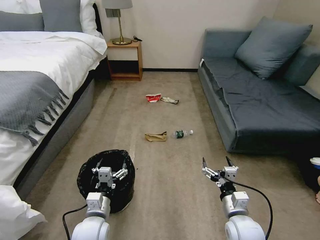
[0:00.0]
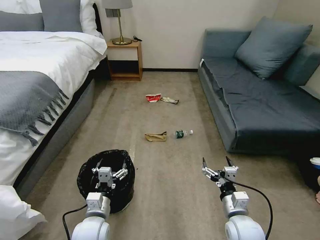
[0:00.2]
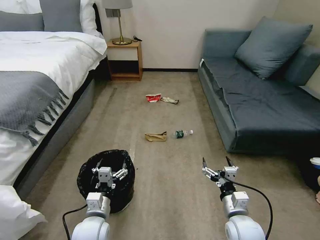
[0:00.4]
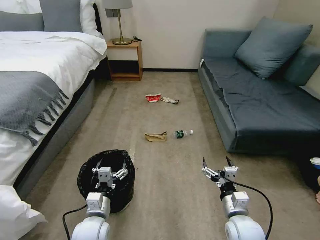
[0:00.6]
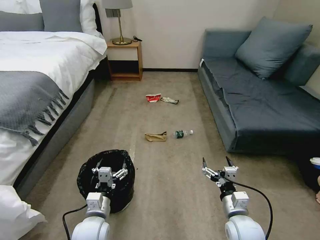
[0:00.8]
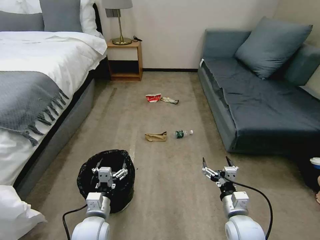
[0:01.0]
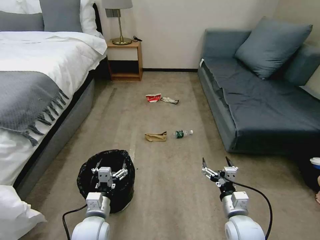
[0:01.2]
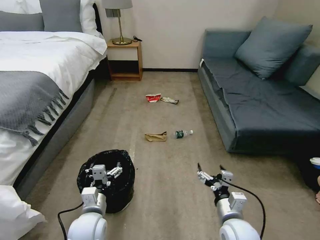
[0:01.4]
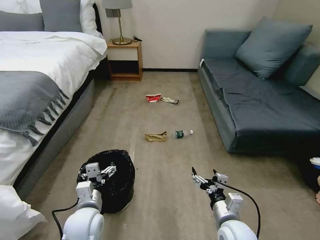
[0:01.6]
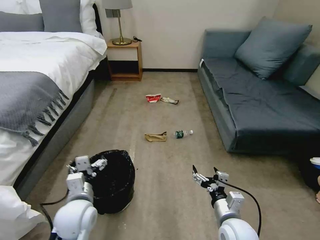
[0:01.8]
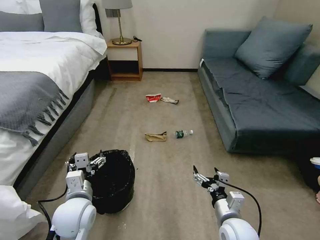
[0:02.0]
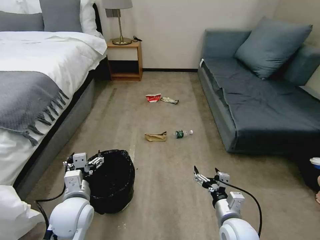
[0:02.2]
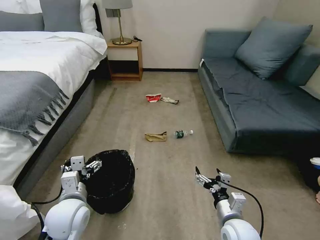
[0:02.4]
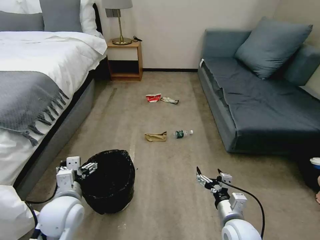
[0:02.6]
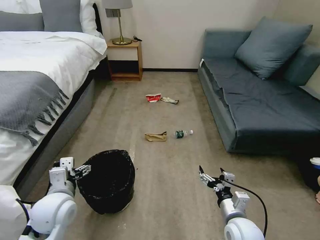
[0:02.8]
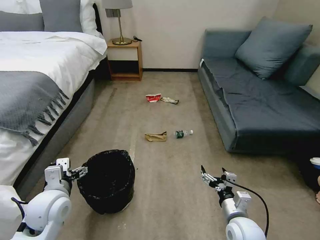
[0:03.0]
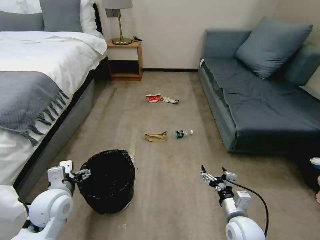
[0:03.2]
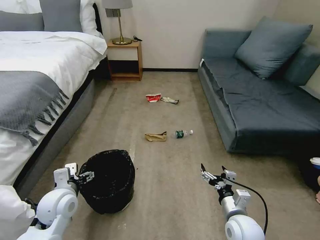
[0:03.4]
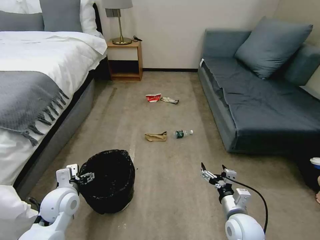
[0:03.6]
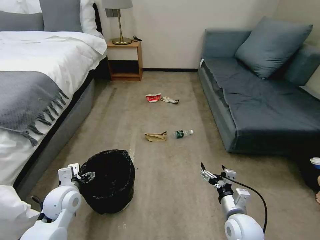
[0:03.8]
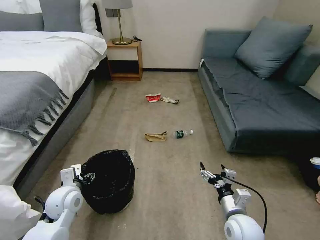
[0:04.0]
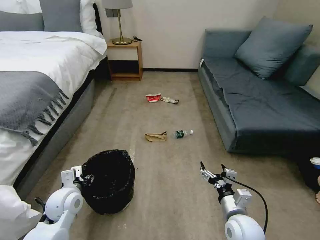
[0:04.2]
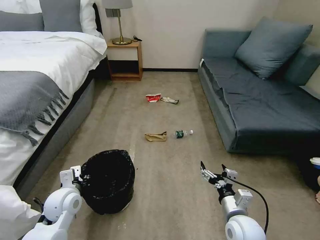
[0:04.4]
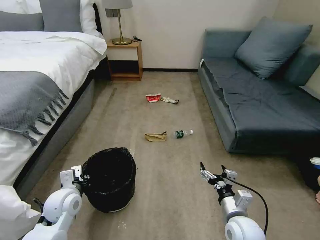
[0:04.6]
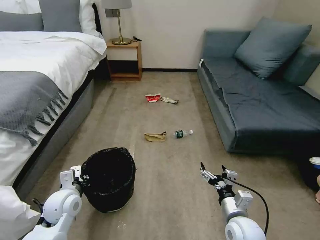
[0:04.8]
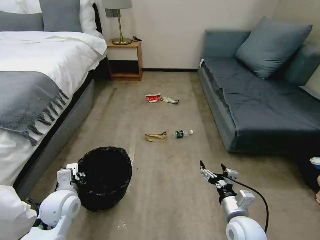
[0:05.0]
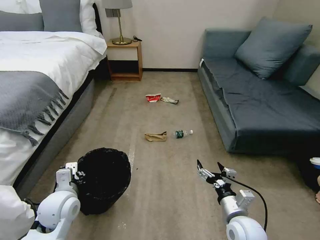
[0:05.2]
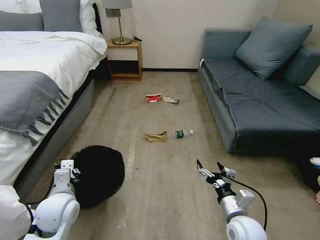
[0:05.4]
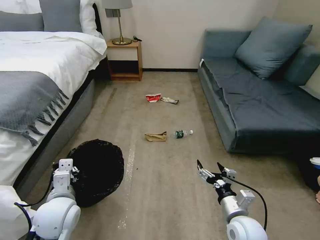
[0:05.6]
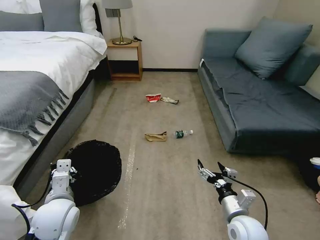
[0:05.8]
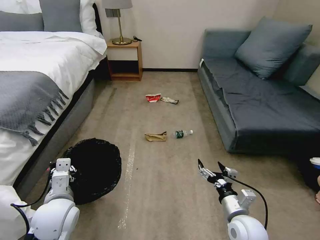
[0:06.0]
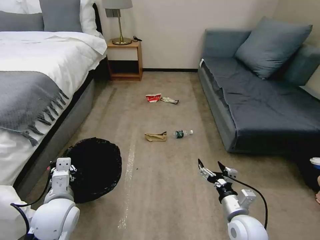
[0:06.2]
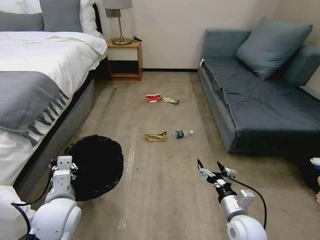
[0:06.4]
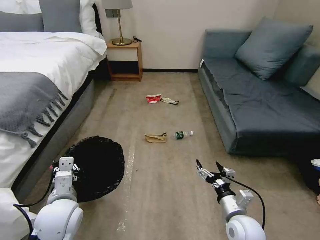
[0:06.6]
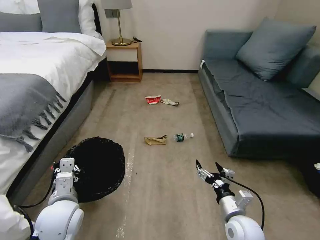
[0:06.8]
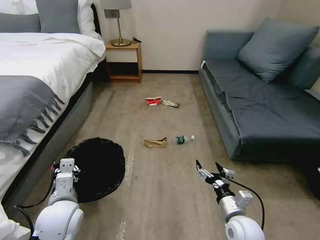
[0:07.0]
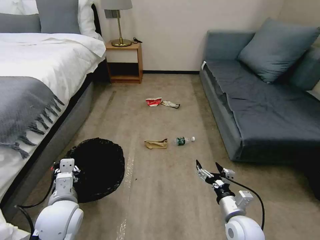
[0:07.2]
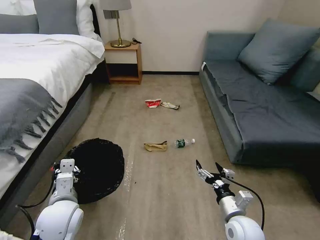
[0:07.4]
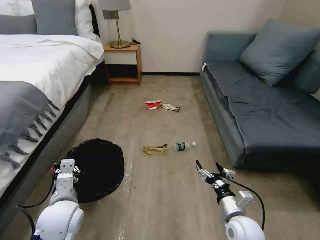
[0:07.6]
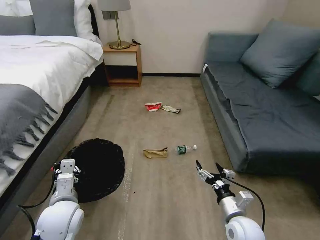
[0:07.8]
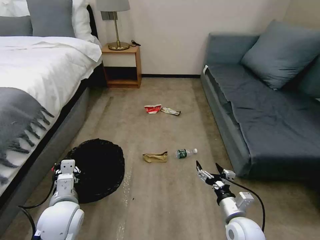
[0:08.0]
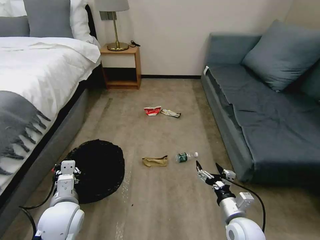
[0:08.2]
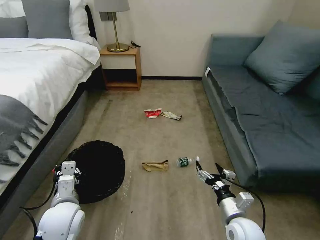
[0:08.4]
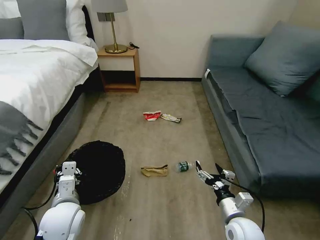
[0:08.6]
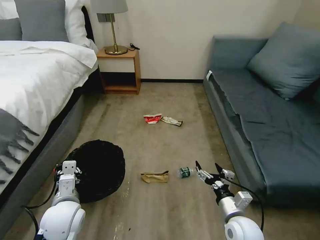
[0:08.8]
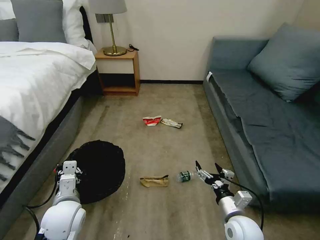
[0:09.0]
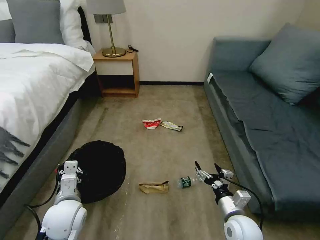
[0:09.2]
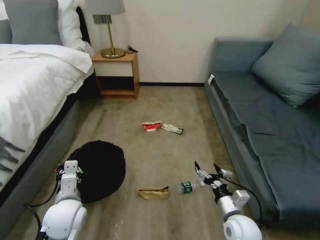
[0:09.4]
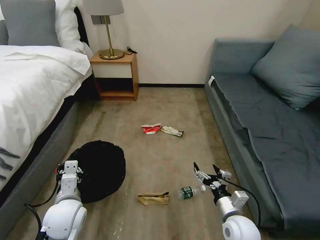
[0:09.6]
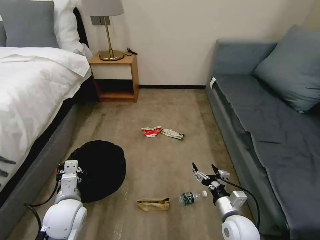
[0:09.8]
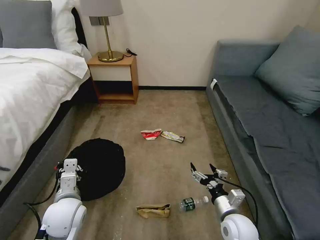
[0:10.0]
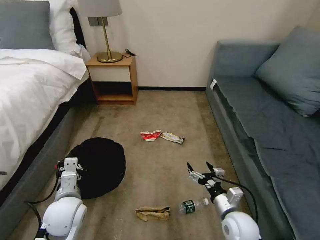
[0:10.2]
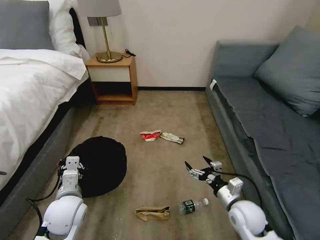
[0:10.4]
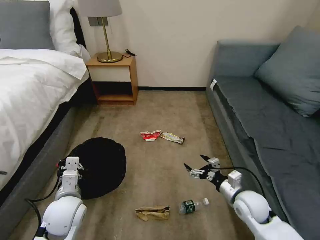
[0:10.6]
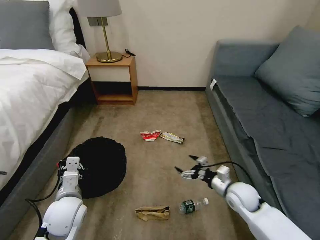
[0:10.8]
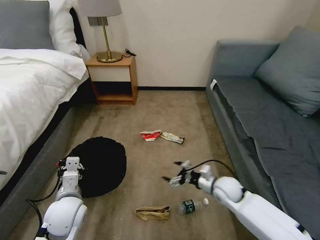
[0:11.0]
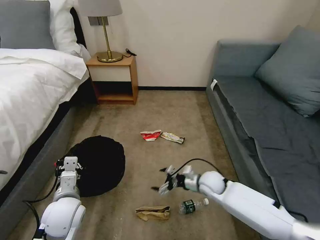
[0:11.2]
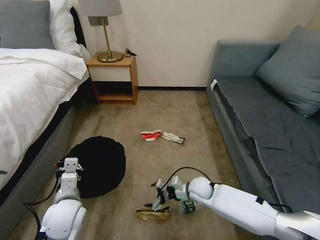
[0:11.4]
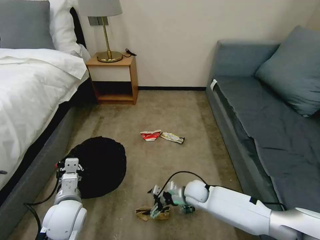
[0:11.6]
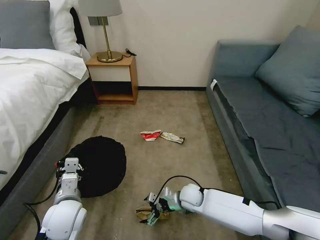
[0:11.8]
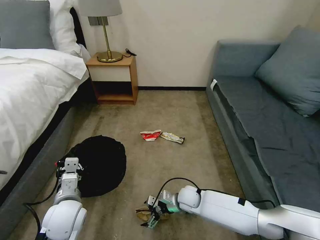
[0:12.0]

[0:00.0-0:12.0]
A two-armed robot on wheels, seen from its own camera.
Task of the whole recording: Pick up the trash bin, then pick up the garbage on the floor and place it into the trash bin.
0:01.6 to 0:03.0: The left gripper shifts about 10 cm to the left and upward.
0:03.0 to 0:04.4: The left gripper goes some 5 cm downward, and closes its fingers.
0:04.4 to 0:06.0: The left gripper shifts some 10 cm backward and upward.
0:10.4 to 0:12.0: The right gripper shifts some 20 cm to the left, downward and forward.

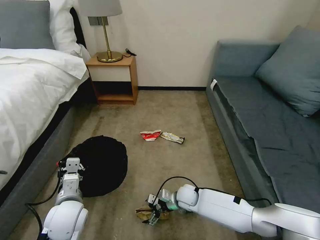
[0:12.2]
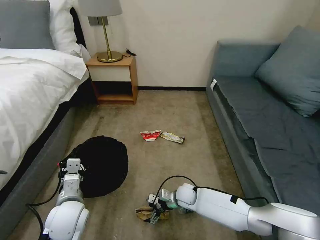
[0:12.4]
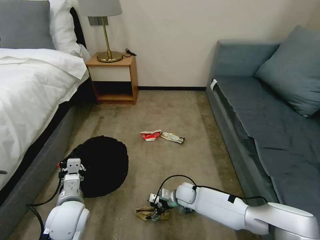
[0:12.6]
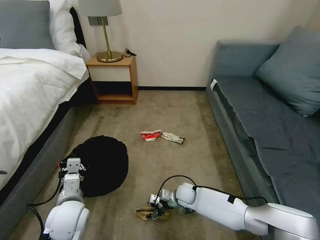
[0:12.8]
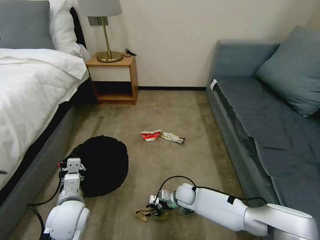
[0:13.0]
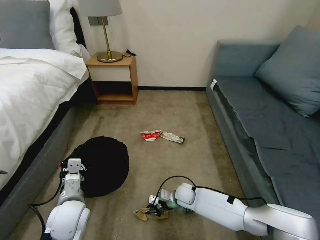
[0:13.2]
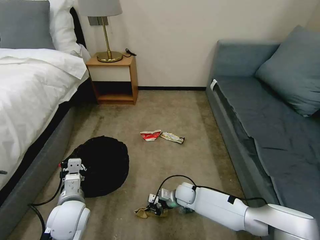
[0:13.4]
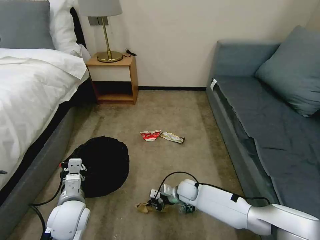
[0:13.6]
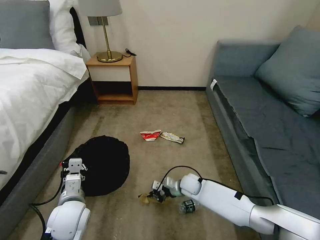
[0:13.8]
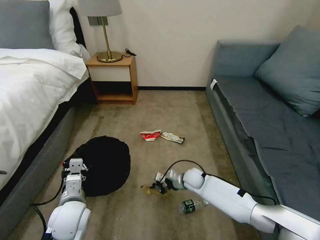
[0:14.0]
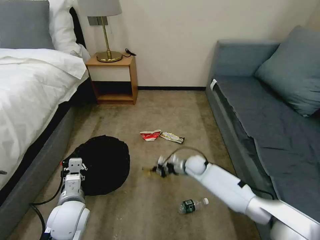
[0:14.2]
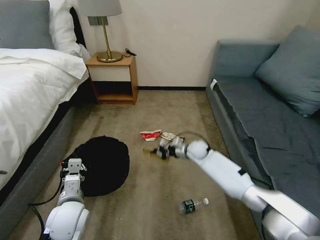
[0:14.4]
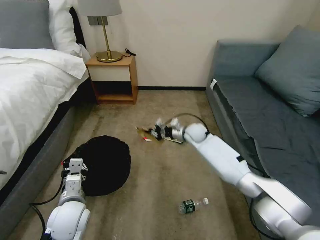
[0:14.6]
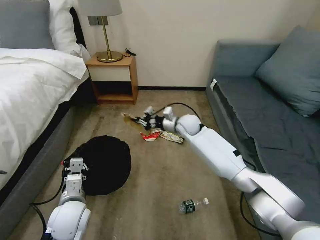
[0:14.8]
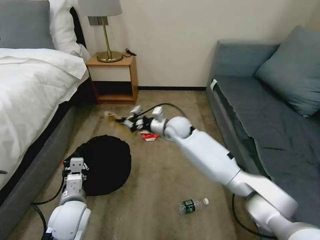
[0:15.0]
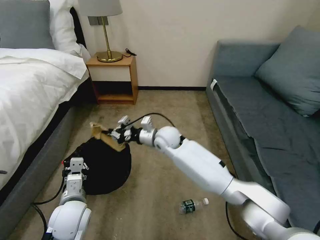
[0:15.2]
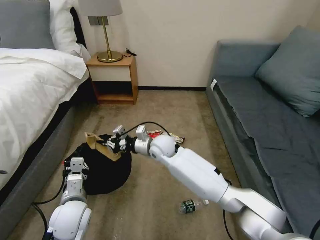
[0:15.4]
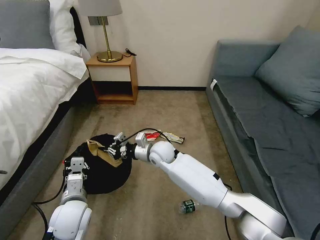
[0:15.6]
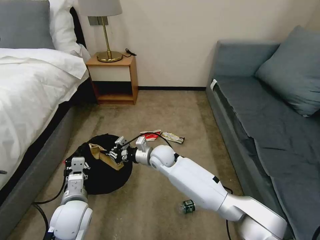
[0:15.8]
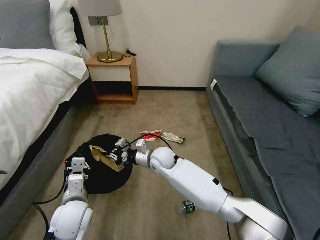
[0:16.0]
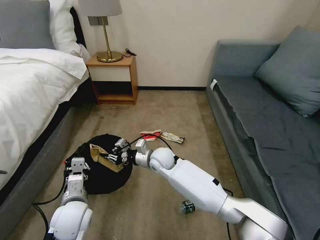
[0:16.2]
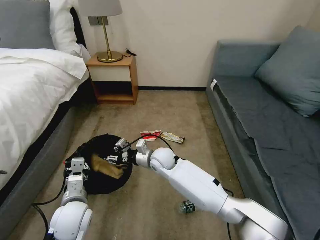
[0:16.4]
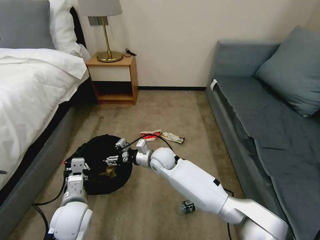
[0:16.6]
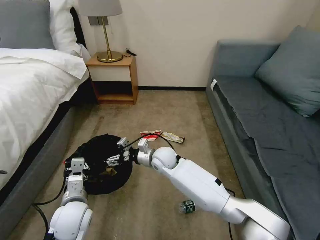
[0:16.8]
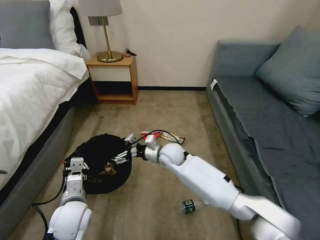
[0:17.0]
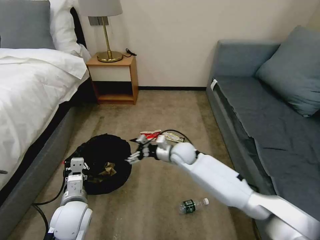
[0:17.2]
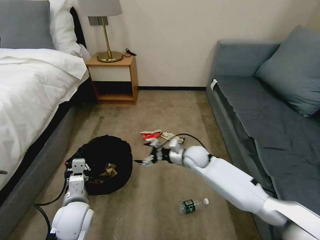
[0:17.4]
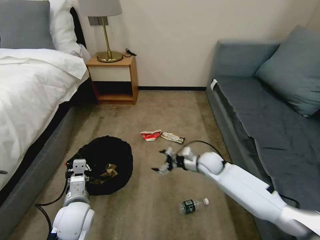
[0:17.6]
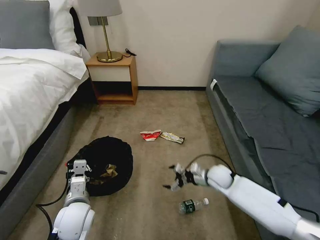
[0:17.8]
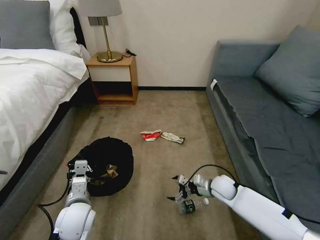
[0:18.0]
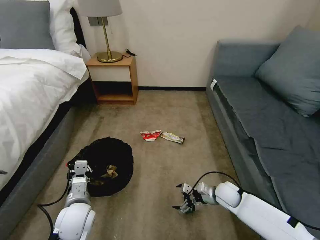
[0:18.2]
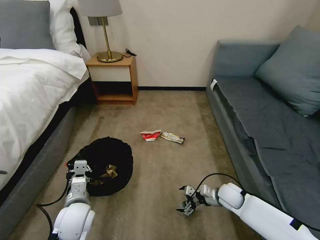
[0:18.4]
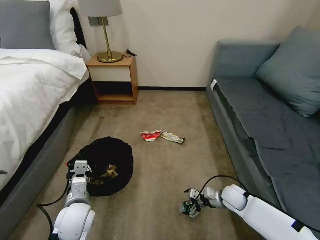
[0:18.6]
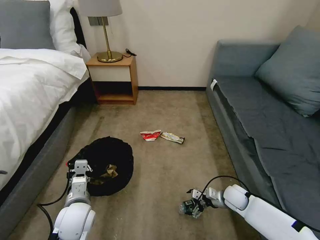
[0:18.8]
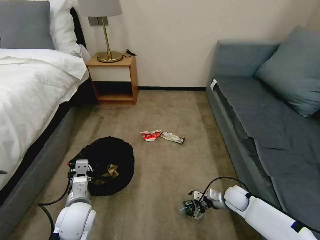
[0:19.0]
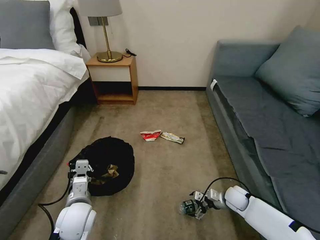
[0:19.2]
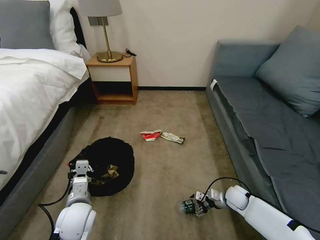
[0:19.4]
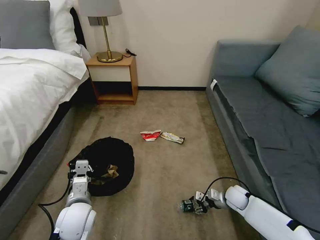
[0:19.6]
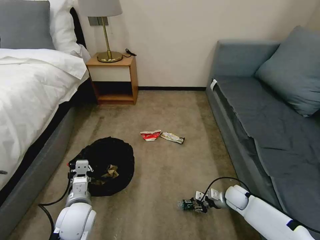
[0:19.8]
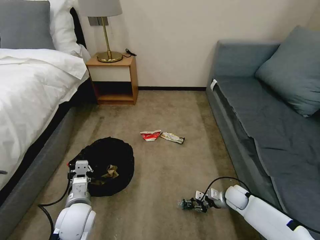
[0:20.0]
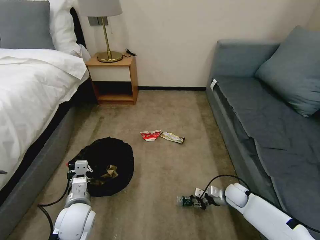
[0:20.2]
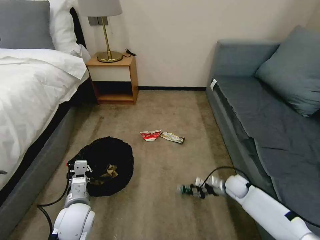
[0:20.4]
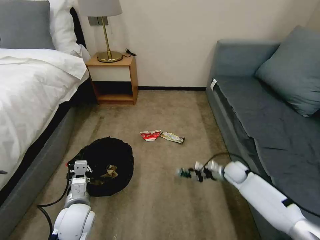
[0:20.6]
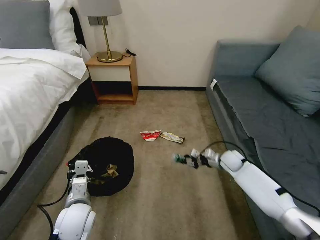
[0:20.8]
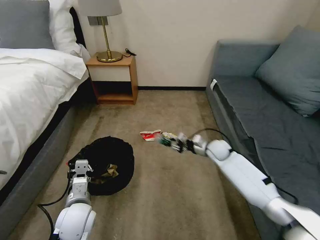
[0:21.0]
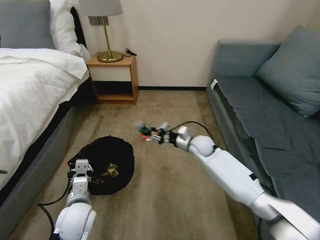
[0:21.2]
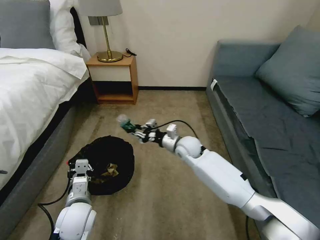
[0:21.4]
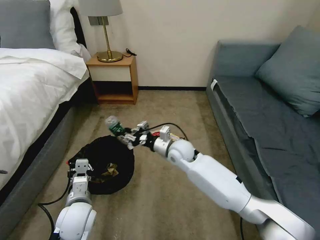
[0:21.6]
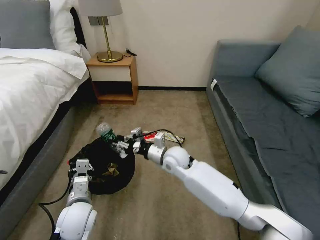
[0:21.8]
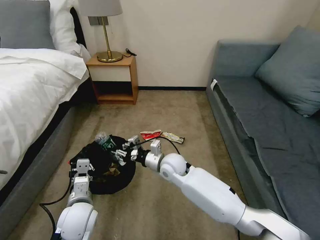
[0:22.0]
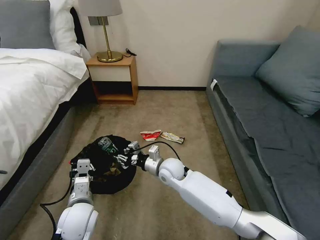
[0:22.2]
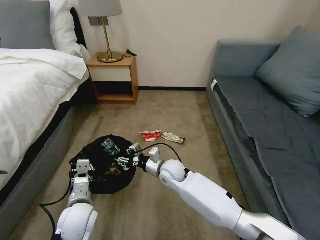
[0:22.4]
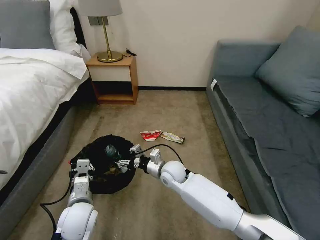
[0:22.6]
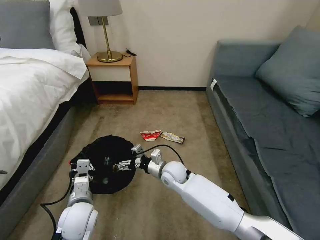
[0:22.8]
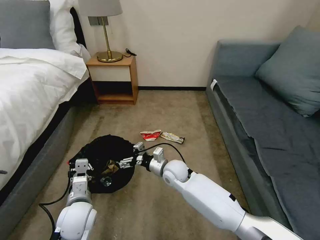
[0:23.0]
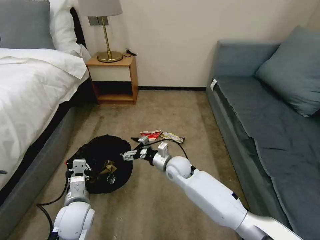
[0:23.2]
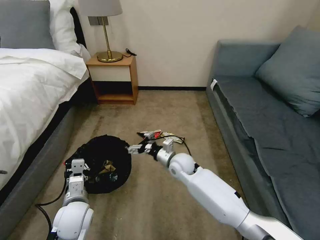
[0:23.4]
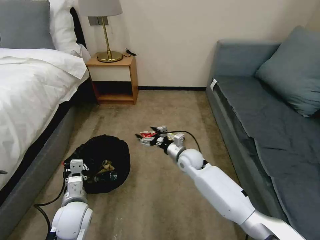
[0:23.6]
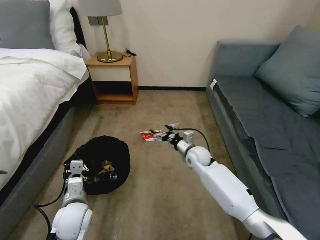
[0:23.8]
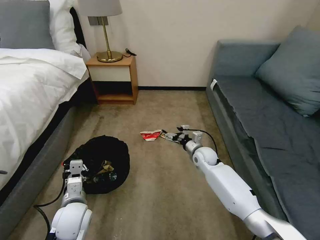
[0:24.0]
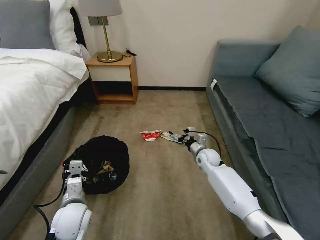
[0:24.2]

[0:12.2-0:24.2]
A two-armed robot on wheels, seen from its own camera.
Task of the whole recording: Pick up the trash bin, then pick up the garbage on the floor and place it into the trash bin.
0:12.2 to 0:13.8: The right gripper closes its fingers.
0:13.8 to 0:15.2: The right gripper heads upward and to the left, covering some 25 cm.
0:15.2 to 0:16.6: The right gripper travels downward by approximately 5 cm, and opens its fingers.
0:16.6 to 0:18.2: The right gripper moves to the right and downward, approximately 30 cm, and opens its fingers.
0:18.2 to 0:19.8: The right gripper heads to the right, covering about 5 cm, and closes up.
0:19.8 to 0:21.2: The right gripper goes approximately 25 cm upward, to the left and forward.
0:21.2 to 0:22.6: The right gripper goes some 15 cm to the left and backward.
0:22.6 to 0:24.2: The right gripper goes about 20 cm to the right and forward, and opens its fingers.
